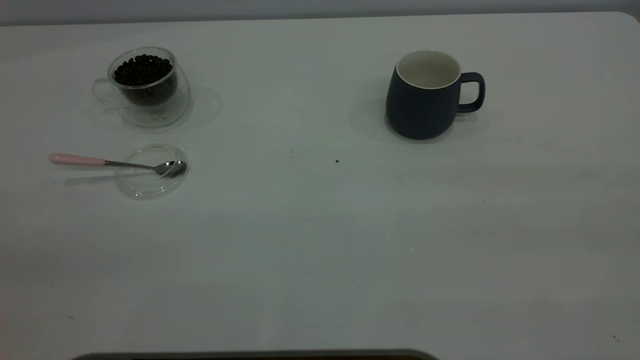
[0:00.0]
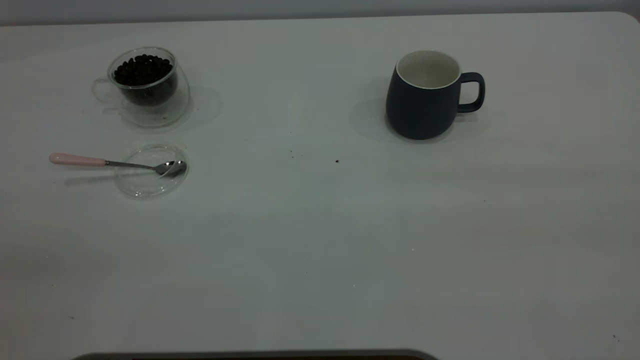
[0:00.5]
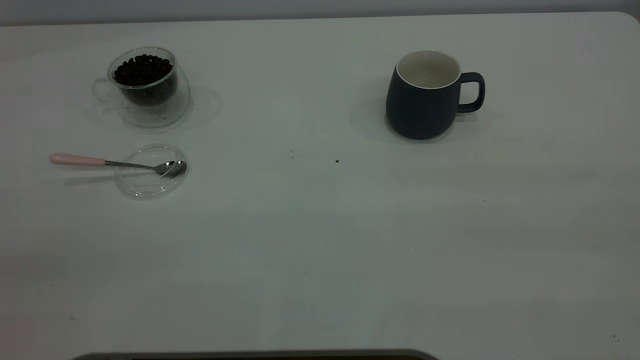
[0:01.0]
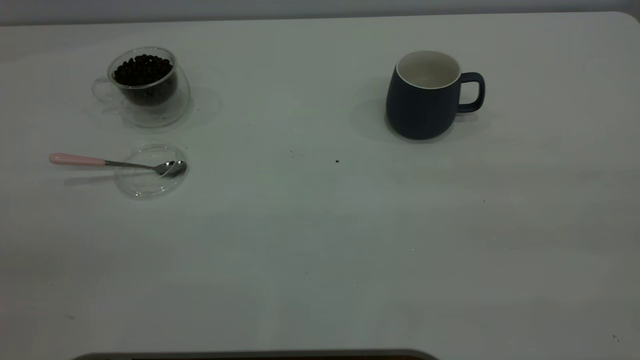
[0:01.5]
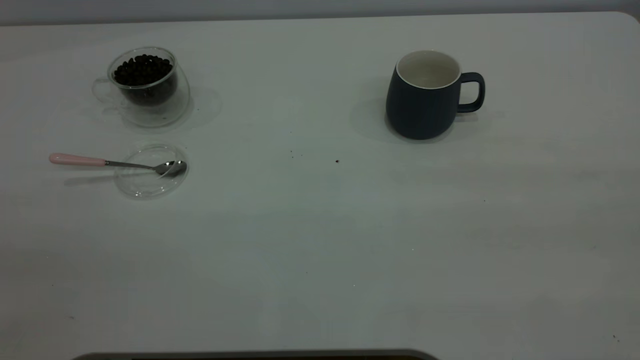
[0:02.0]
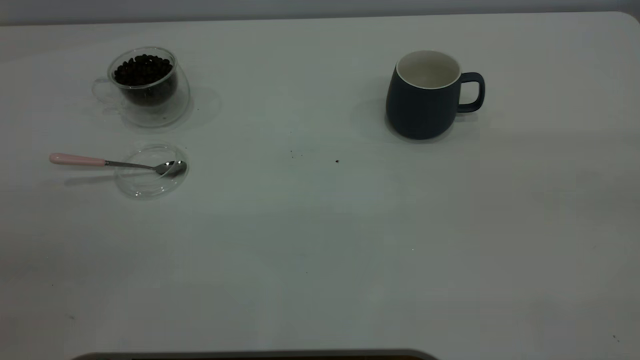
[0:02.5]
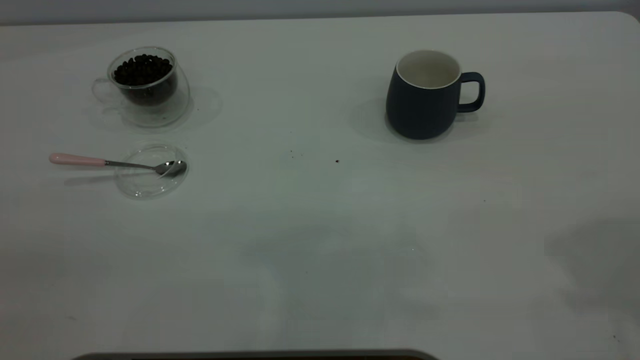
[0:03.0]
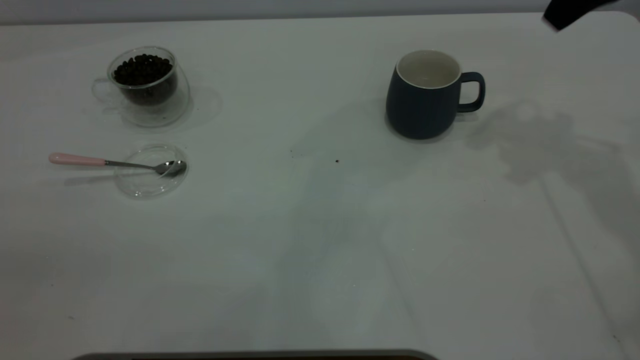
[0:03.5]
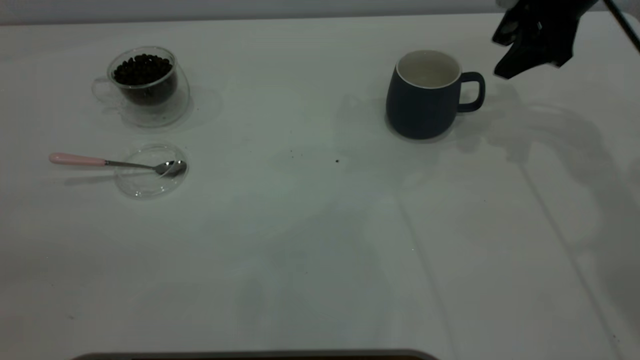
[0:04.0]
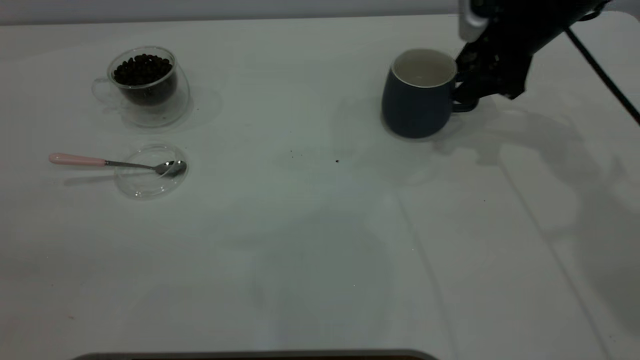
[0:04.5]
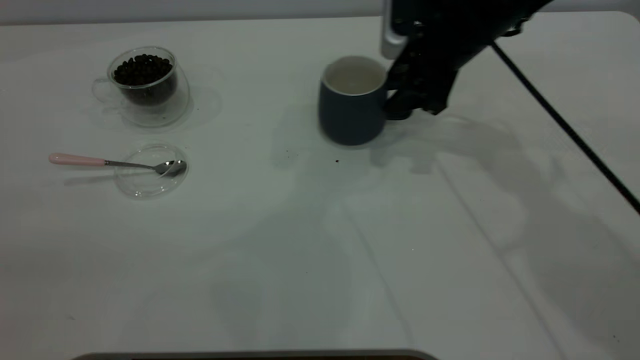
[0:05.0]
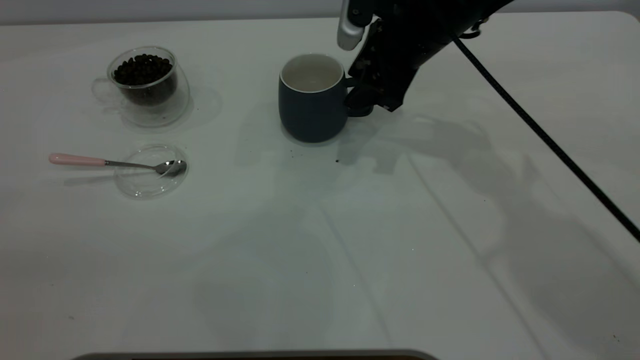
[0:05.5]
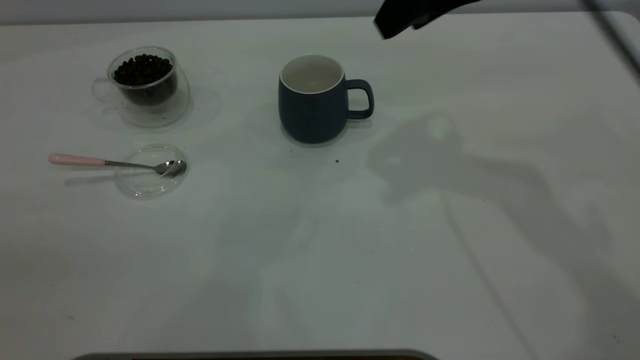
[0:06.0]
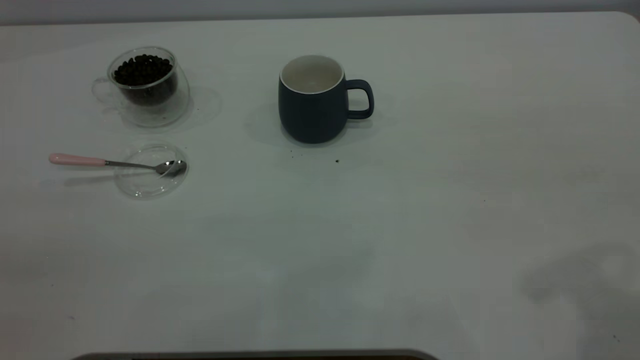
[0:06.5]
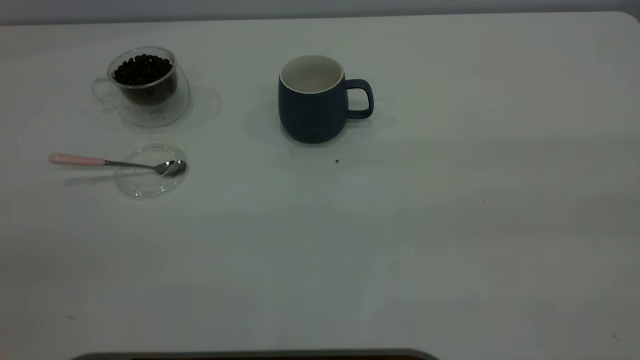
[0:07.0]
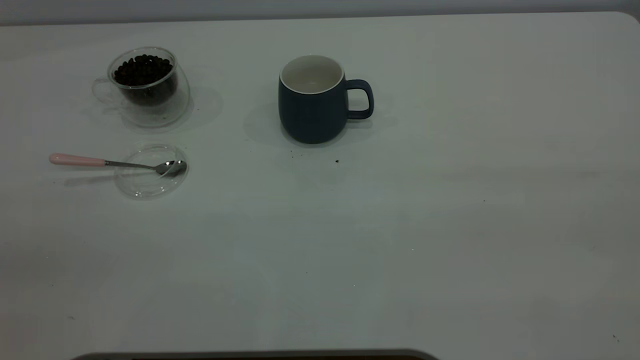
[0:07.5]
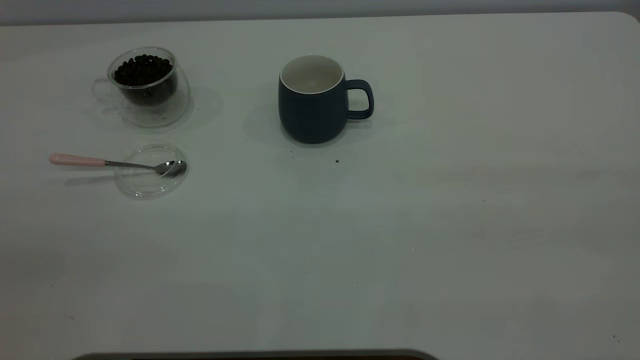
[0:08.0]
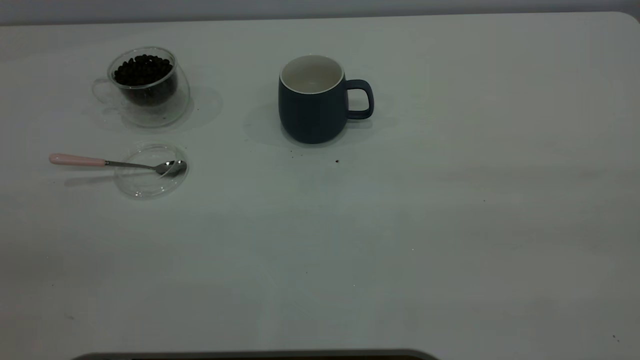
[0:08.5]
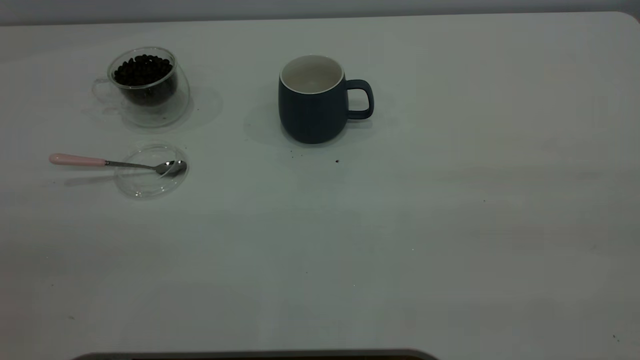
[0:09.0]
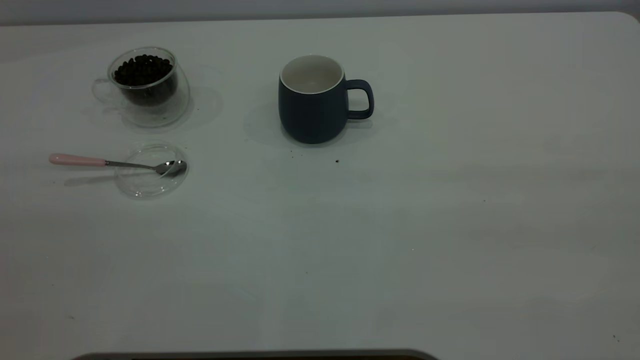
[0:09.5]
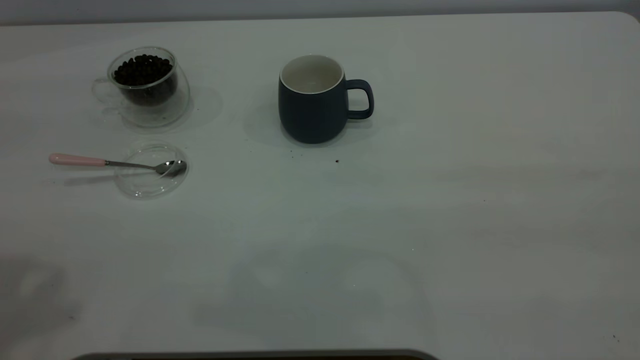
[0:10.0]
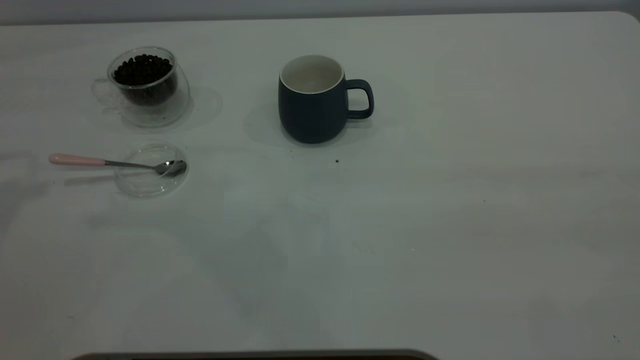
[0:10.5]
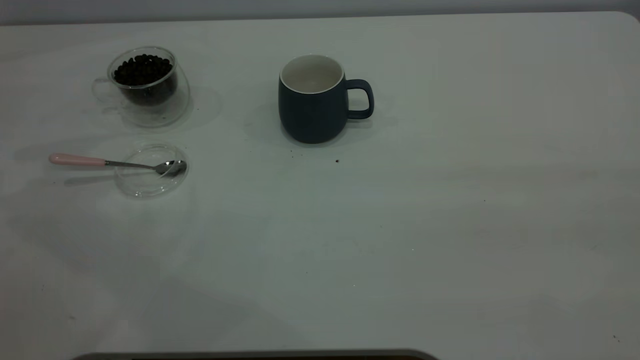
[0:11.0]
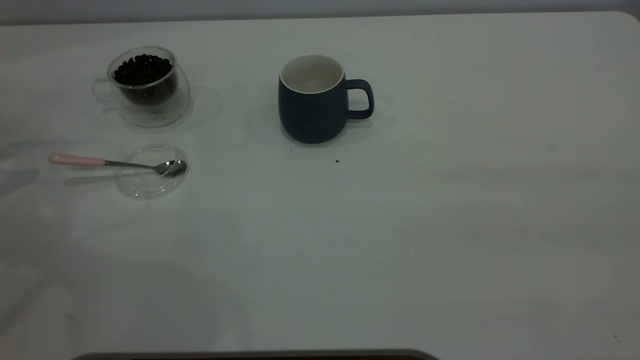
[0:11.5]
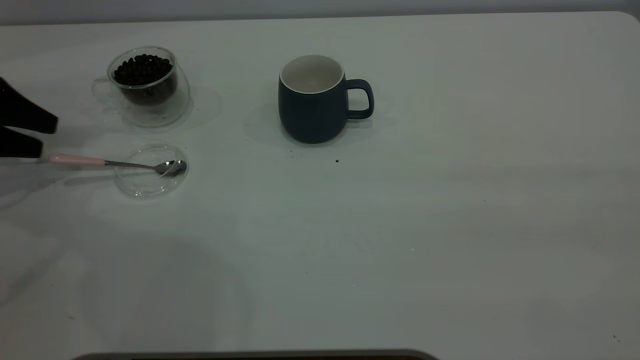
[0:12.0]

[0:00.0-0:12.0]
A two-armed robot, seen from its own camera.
Task of the whole recording: the right gripper place the grey cup in the center of the table, the left gripper take the pink spoon from the cup lid and scoop out the coffee beans from the coffee cup and put them into the grey cup, the left gripper put the spoon back into the cup lid.
Step, 0:00.0 to 0:05.5: Move the cup to the center of view.
0:00.0 to 0:02.0: Both grippers stay about where they are.
0:02.0 to 0:04.0: The right gripper goes roughly 50 cm forward and downward.
0:04.0 to 0:06.0: The right gripper heads to the left, backward and upward, covering some 15 cm.
0:06.0 to 0:08.0: The right gripper shifts some 40 cm backward and to the right, and closes its fingers.
0:10.0 to 0:12.0: The left gripper heads downward, forward and to the left, covering roughly 35 cm.

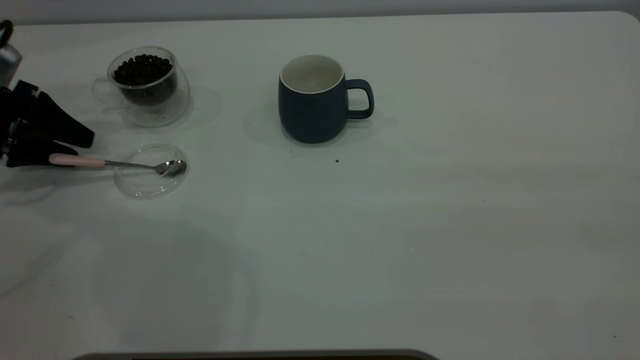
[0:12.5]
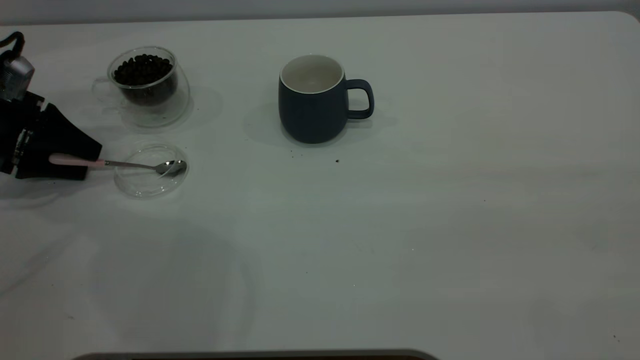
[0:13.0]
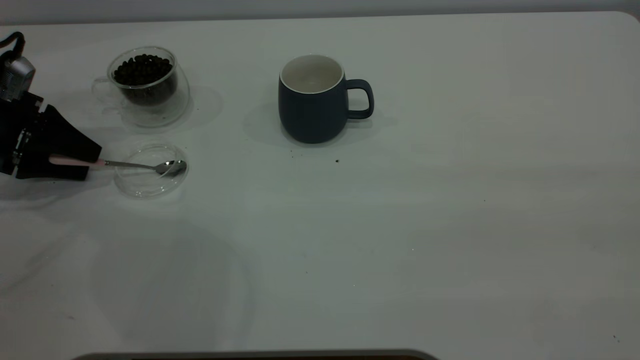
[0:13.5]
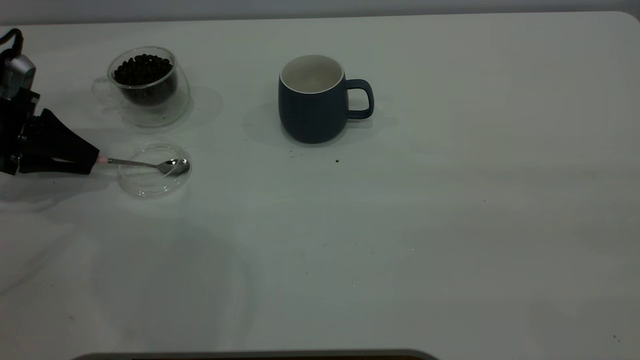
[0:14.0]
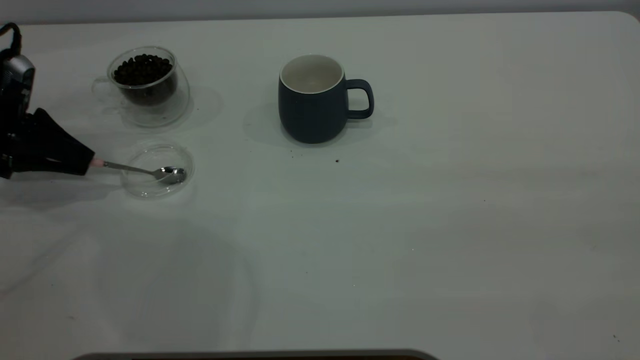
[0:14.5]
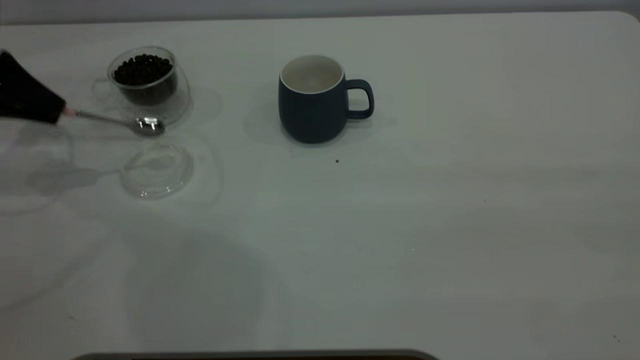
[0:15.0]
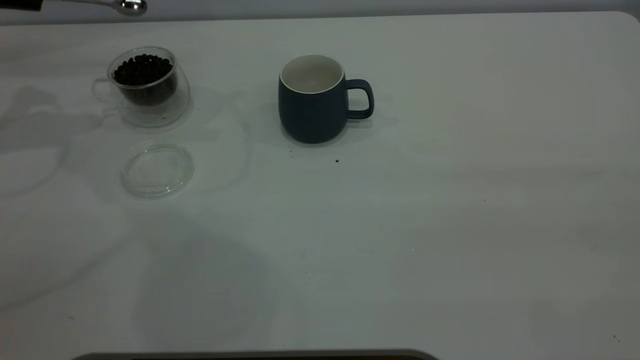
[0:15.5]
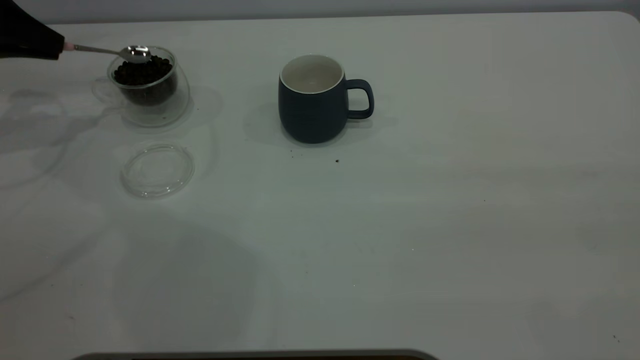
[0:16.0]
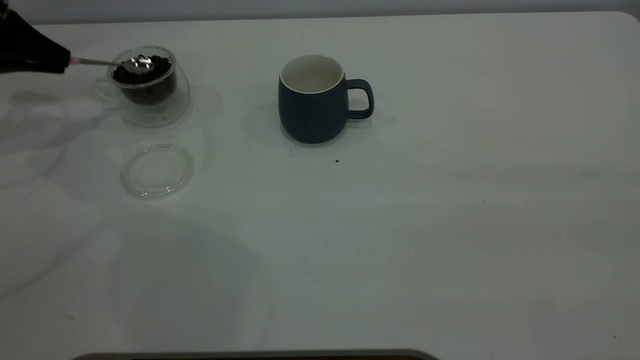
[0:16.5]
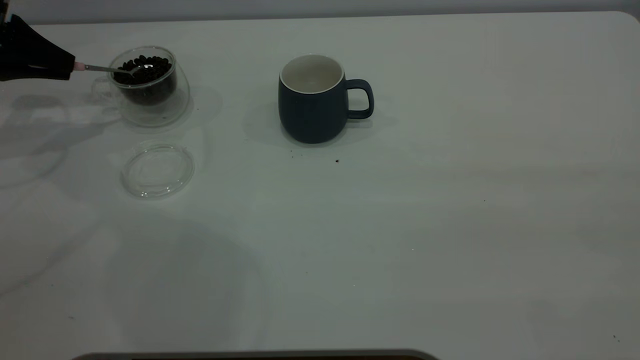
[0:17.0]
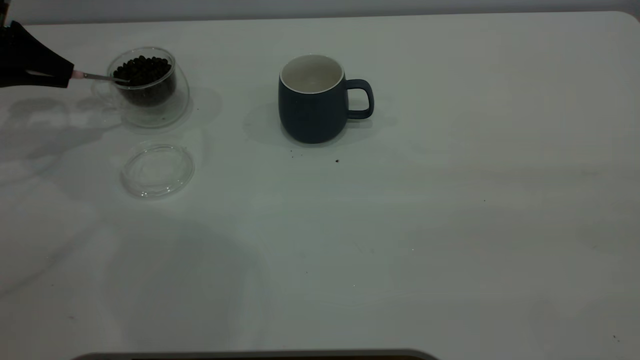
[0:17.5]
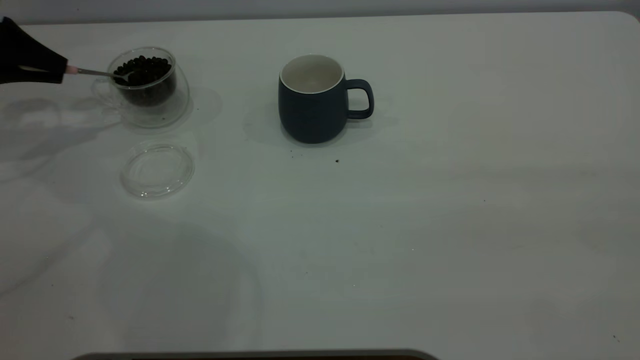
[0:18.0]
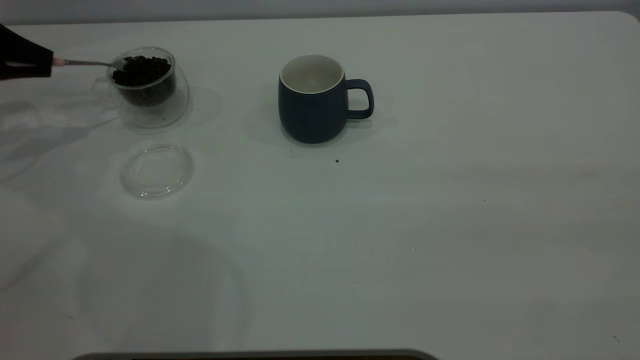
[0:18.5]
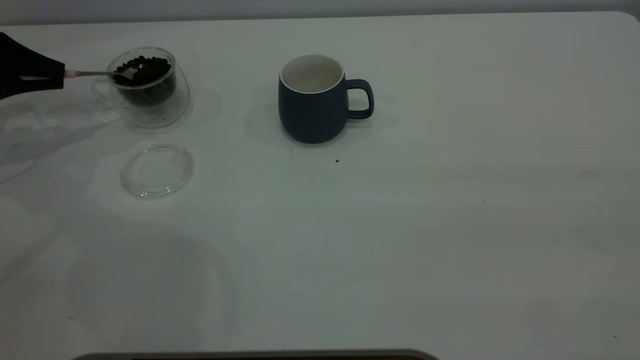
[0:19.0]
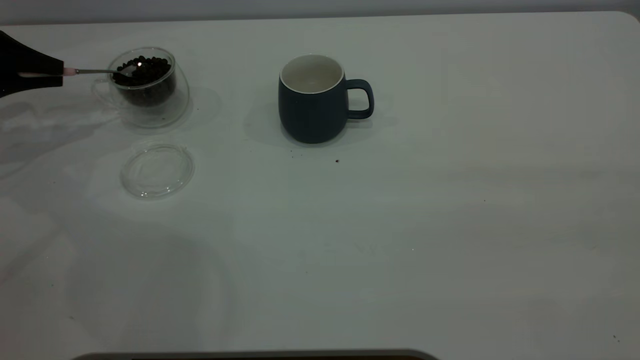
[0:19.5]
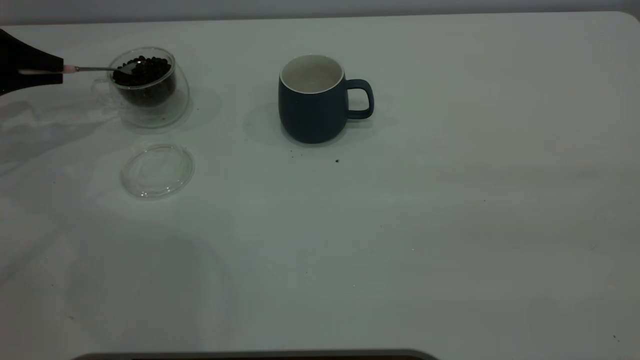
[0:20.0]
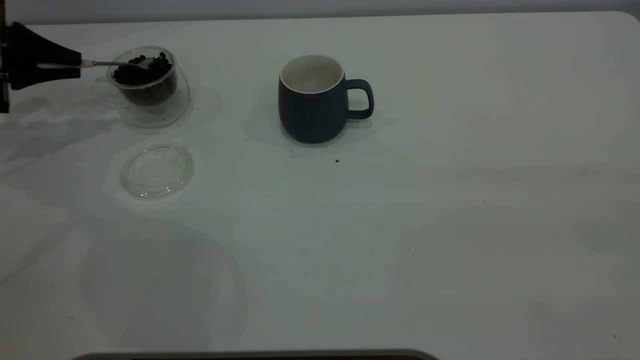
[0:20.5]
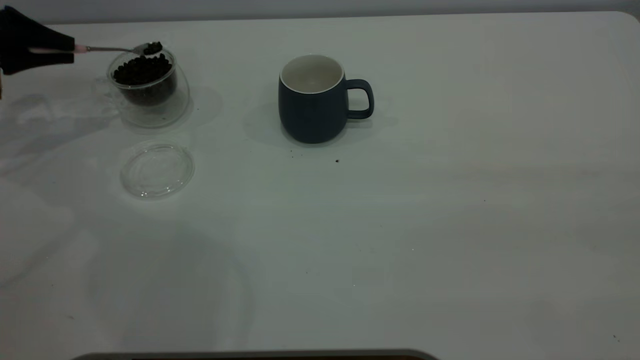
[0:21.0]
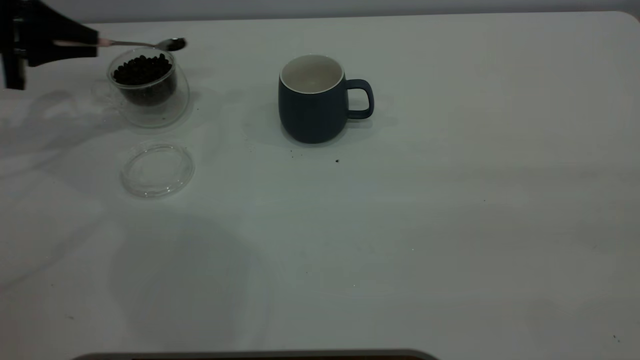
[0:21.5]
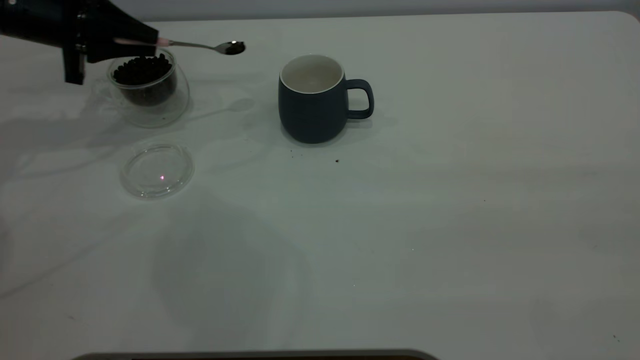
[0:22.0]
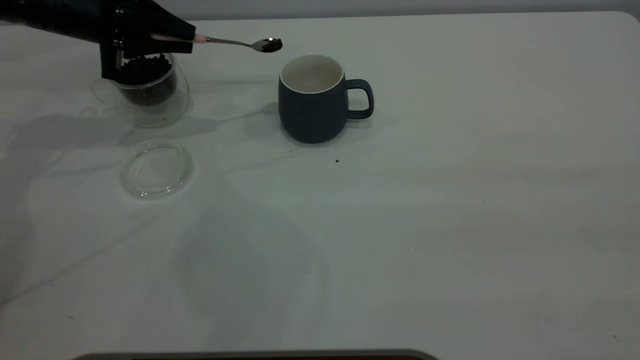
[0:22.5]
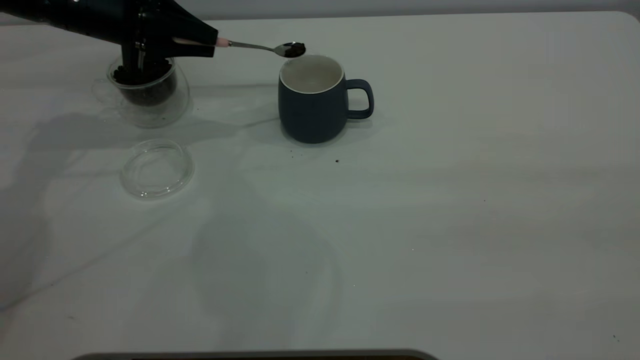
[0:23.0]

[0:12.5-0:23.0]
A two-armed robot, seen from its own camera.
Task of the whole recording: the right gripper place the grey cup in the center of the table, the left gripper take the pink spoon from the cup lid and scoop out the coffee beans from the coffee cup and put them into the grey cup, the left gripper put the spoon back into the cup lid.
Step, 0:12.5 to 0:14.5: Pick up the spoon.
0:12.5 to 0:14.5: The left gripper closes its fingers.
0:14.5 to 0:16.5: The left gripper travels forward and upward by some 10 cm.
0:19.0 to 0:21.0: The grippers make only small movements.
0:21.0 to 0:23.0: The left gripper heads to the right, covering approximately 15 cm.
